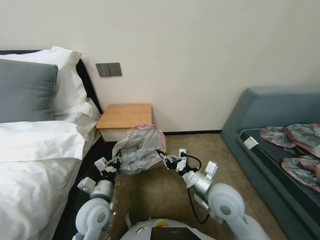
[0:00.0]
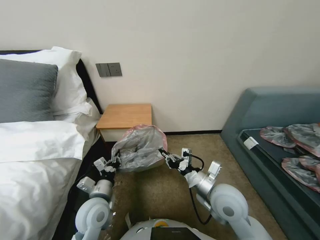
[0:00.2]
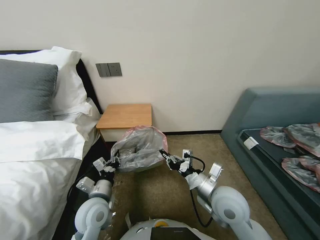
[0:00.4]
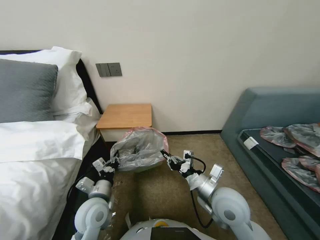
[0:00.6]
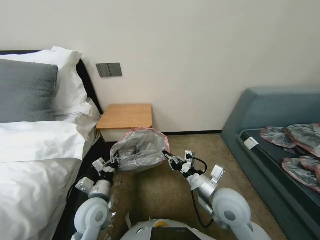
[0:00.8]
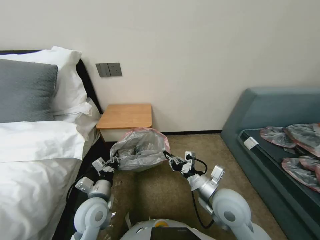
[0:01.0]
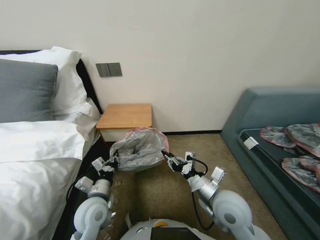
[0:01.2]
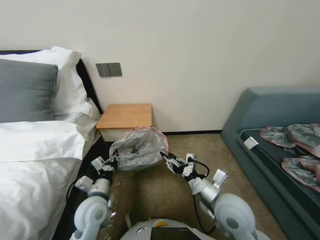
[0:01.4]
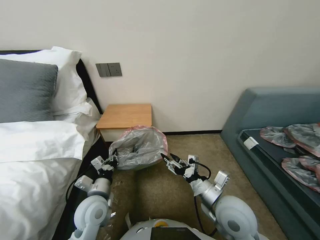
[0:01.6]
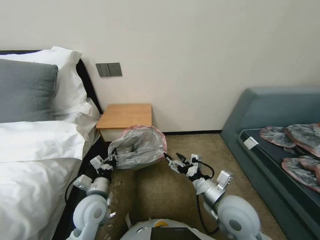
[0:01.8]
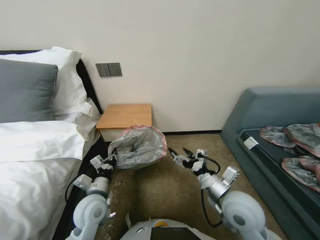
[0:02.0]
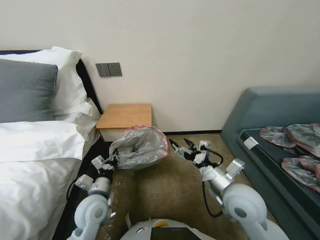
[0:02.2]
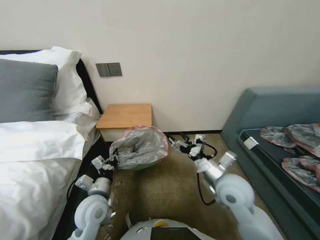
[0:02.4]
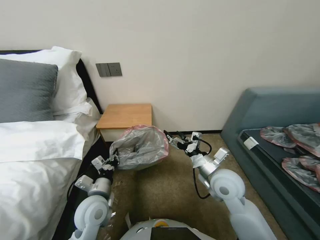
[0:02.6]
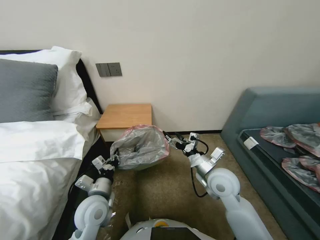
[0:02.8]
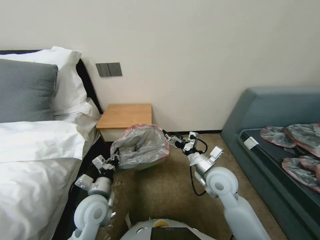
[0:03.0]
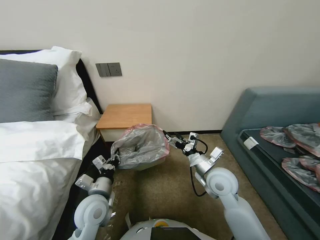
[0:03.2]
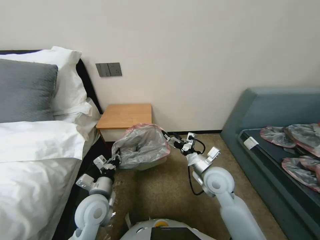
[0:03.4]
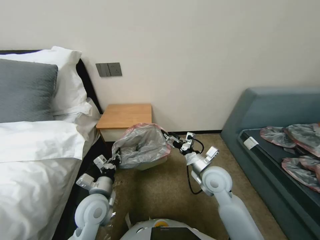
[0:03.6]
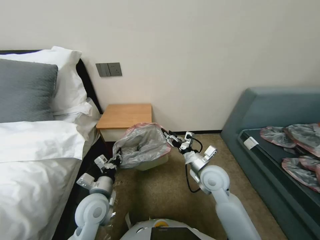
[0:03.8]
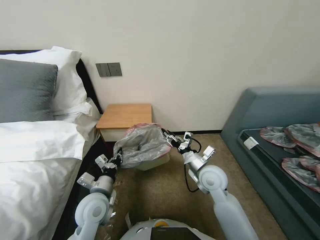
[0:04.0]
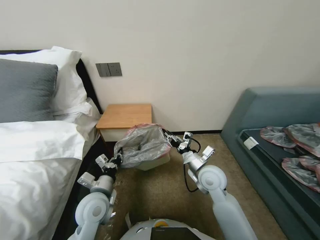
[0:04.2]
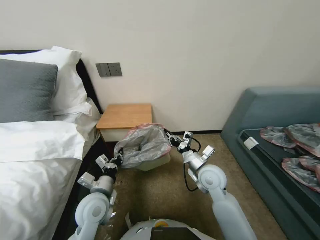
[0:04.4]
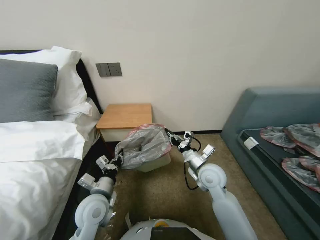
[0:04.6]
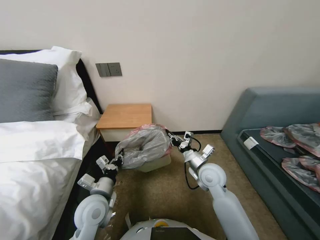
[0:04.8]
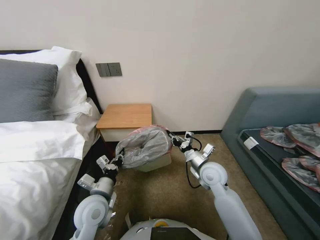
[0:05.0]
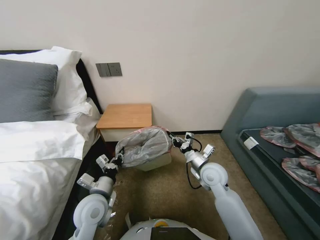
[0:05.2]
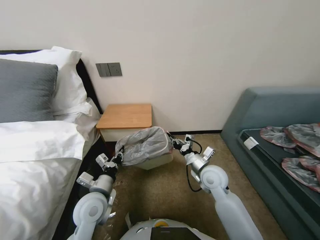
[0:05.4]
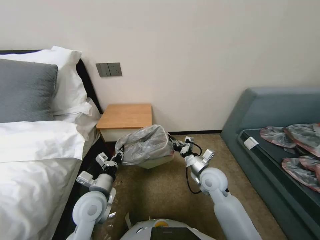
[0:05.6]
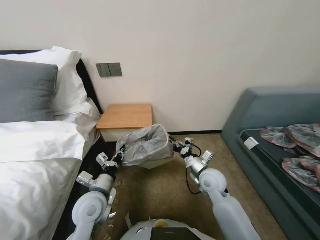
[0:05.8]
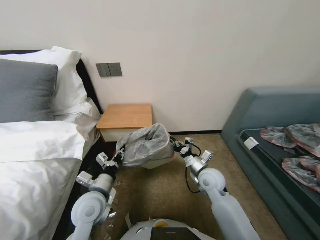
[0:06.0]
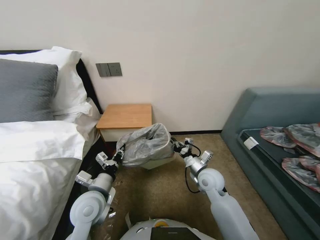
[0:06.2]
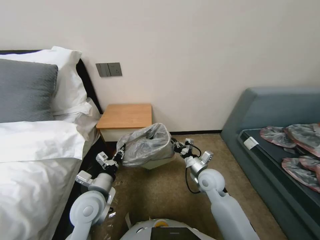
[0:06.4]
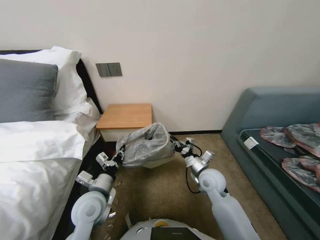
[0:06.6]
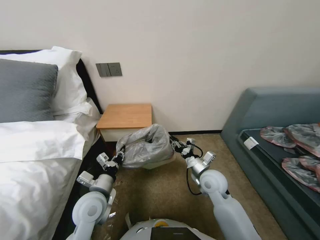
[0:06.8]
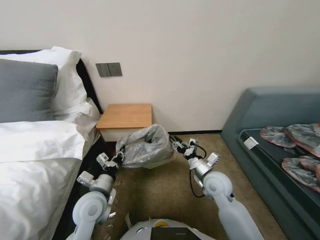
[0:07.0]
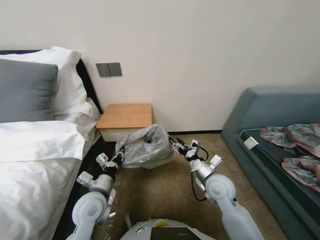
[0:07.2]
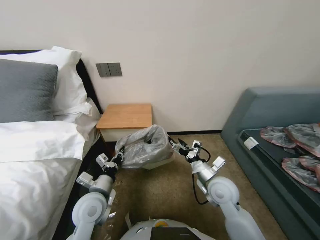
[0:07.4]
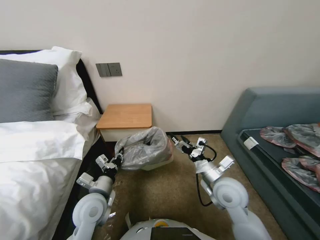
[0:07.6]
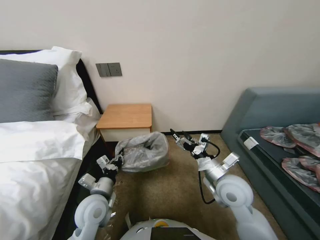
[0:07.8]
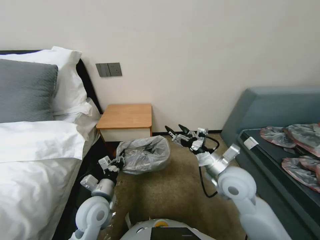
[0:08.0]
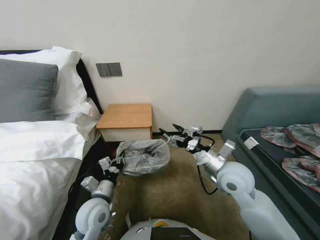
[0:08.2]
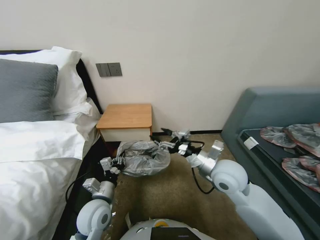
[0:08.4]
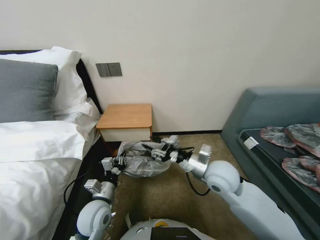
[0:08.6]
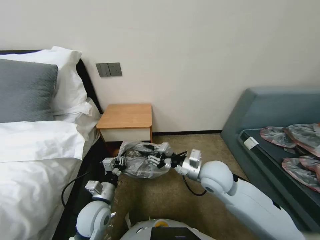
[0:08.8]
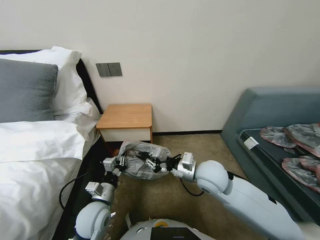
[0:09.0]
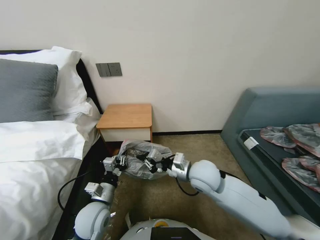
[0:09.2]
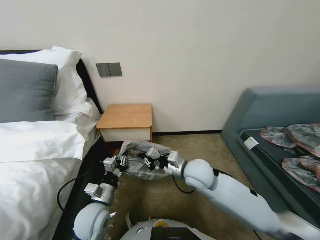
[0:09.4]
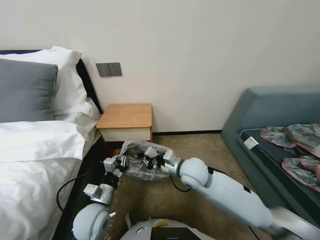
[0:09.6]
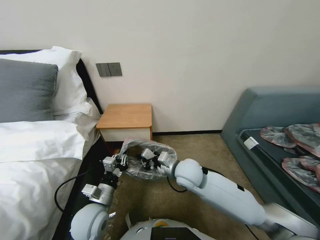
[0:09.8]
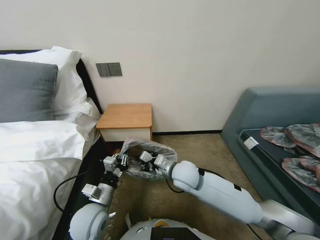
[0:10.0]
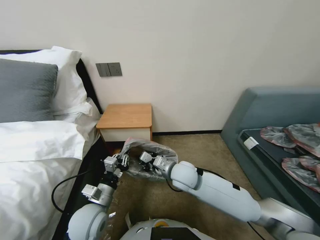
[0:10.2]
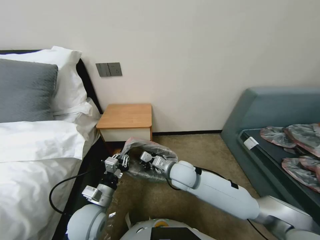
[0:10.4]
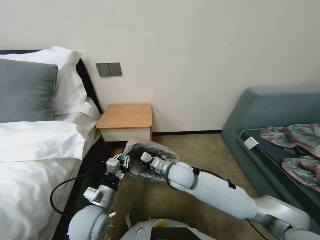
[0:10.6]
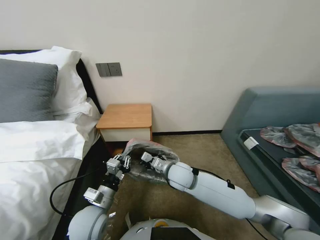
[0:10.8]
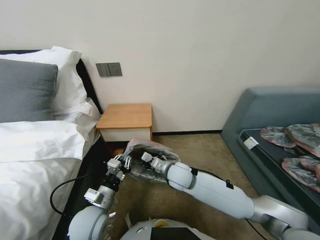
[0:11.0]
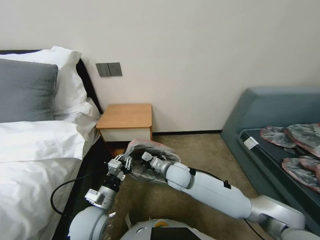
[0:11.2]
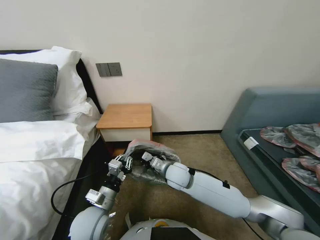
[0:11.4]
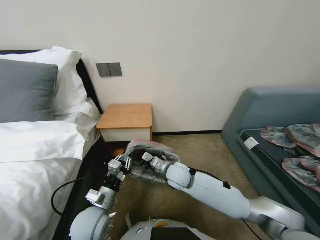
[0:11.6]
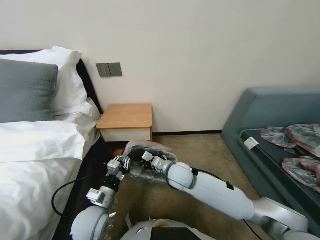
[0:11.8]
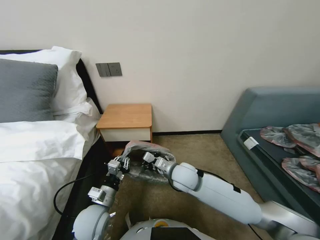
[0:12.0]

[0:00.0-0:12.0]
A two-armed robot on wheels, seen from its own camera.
Task of the whole recording: Pick up the garbage bag from the table and place it over the trash can.
0:00.0 to 0:01.6: The right gripper opens its fingers.
0:01.6 to 0:03.0: The right gripper is displaced forward by roughly 10 cm, and opens.
0:03.0 to 0:04.4: The right gripper closes up.
0:04.4 to 0:06.0: There are only small adjustments of the grippers.
0:06.0 to 0:07.6: The right gripper goes some 5 cm backward, and opens its fingers.
0:07.6 to 0:09.0: The right gripper shifts roughly 10 cm to the left and upward, and closes.
0:09.0 to 0:10.4: The right gripper moves to the left, roughly 10 cm.
0:10.4 to 0:12.0: There are only small adjustments of the grippers.

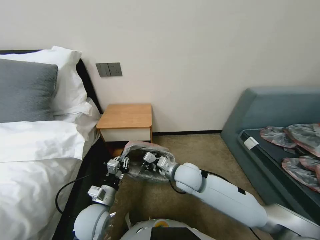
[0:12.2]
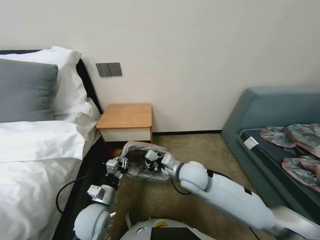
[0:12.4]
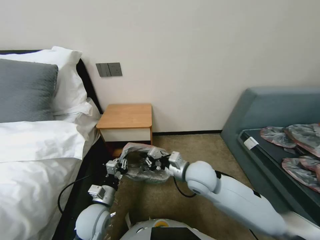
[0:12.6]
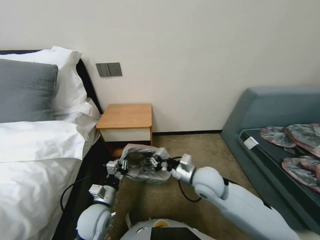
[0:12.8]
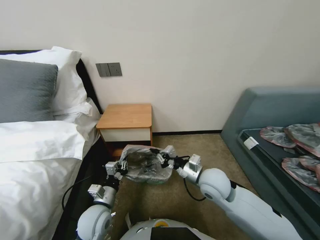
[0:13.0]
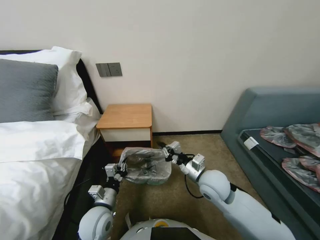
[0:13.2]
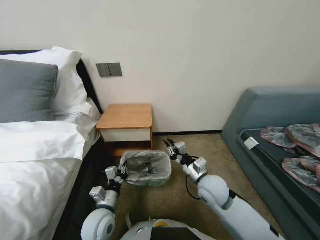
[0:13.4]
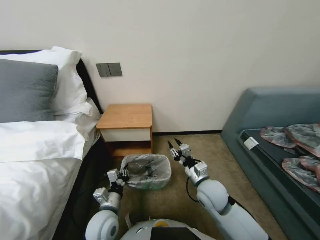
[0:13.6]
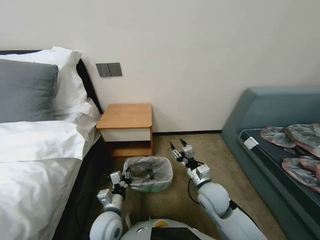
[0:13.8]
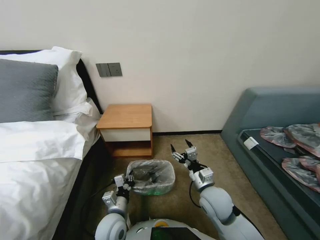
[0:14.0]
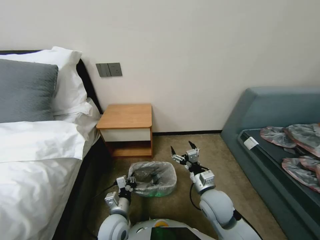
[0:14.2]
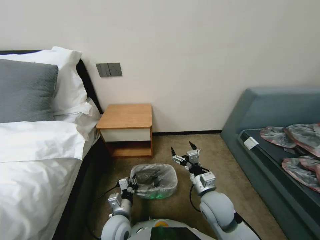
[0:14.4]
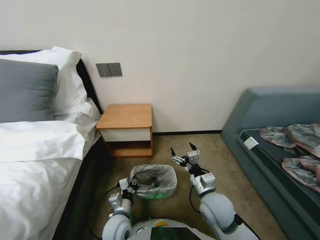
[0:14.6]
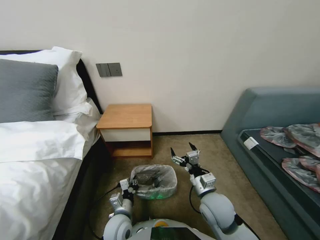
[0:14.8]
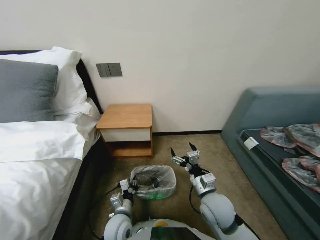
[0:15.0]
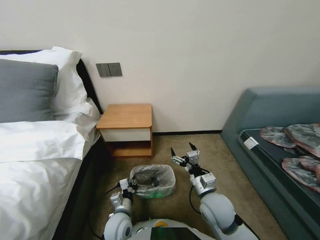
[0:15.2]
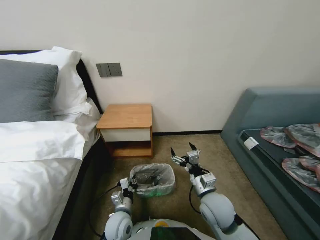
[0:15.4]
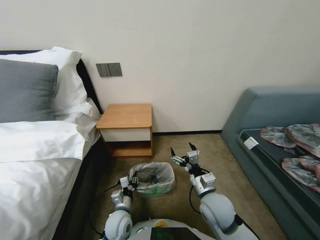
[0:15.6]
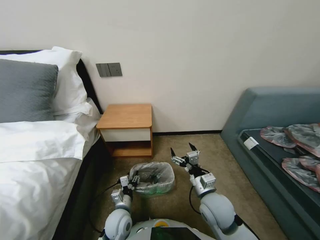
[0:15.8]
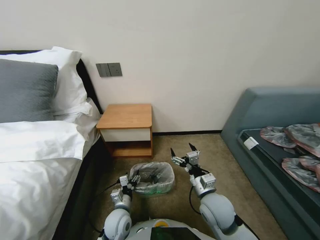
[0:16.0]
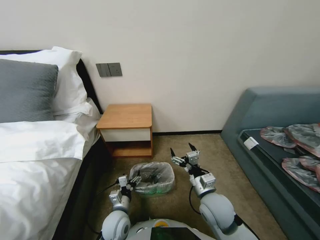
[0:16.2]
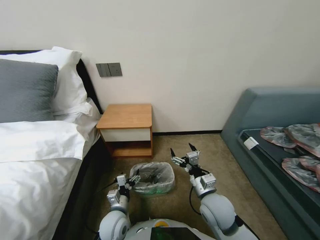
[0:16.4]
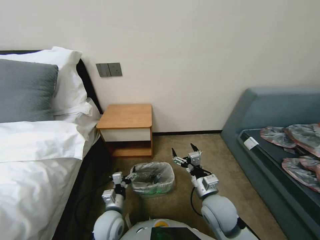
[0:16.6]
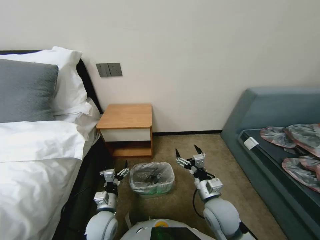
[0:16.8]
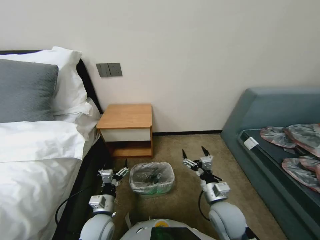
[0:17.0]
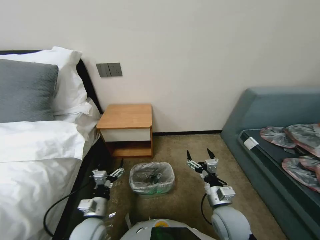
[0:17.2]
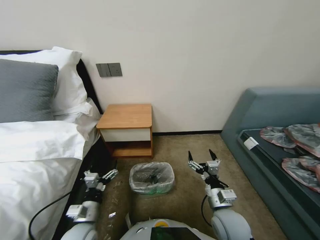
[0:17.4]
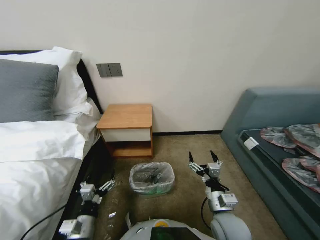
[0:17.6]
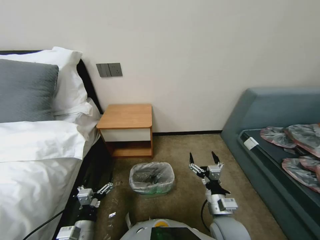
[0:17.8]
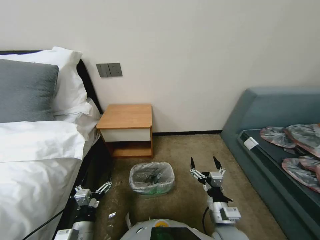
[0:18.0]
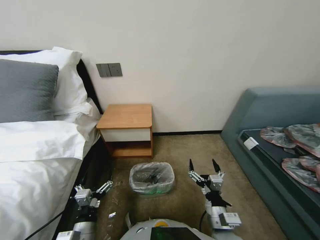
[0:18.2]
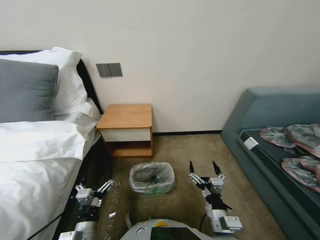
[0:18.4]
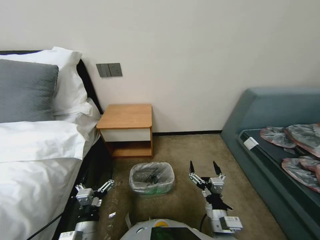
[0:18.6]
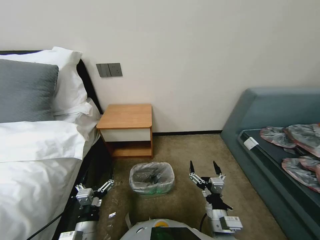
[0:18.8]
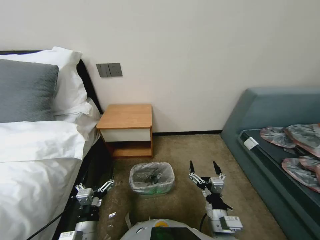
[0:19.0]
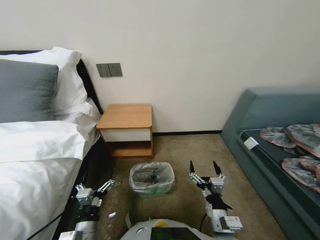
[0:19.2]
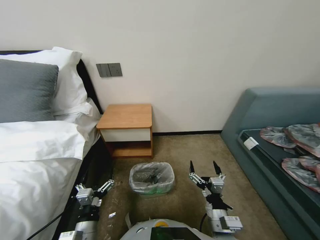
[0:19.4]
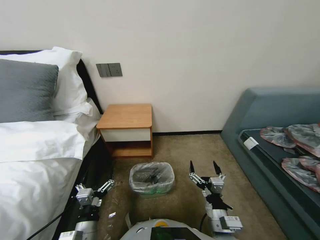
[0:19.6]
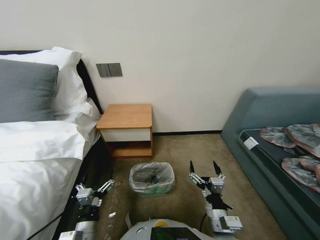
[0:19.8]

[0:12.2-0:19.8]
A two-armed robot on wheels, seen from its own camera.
Task of the whole recording: Pick up the garbage bag from the table and place it over the trash can.
0:12.2 to 0:13.8: The right gripper shifts roughly 10 cm to the right, and opens its fingers.
0:13.8 to 0:15.2: The right gripper opens up, while the left gripper moves downward, roughly 5 cm.
0:15.2 to 0:16.8: The left gripper shifts by approximately 5 cm, and opens its fingers.
0:16.8 to 0:18.2: Both grippers move backward, approximately 10 cm.
0:18.2 to 0:19.8: The grippers make only small movements.

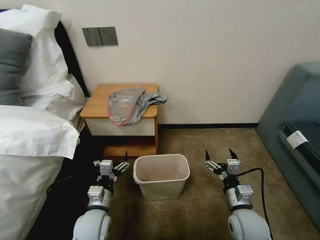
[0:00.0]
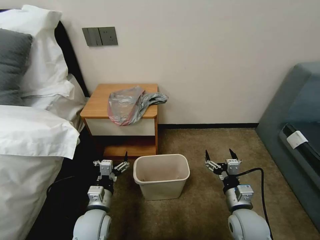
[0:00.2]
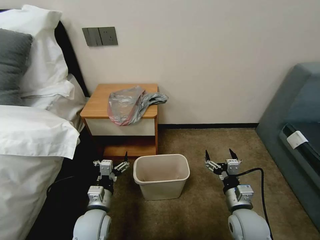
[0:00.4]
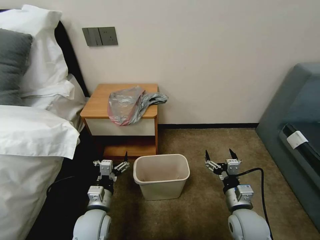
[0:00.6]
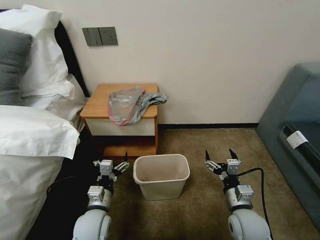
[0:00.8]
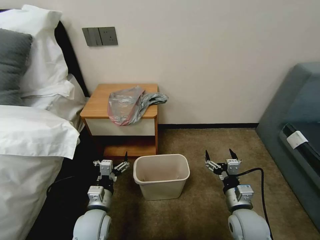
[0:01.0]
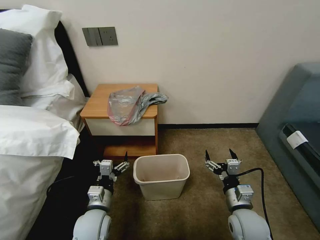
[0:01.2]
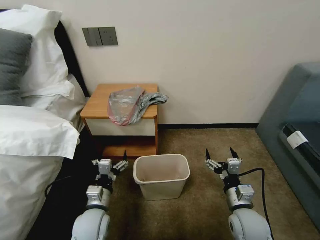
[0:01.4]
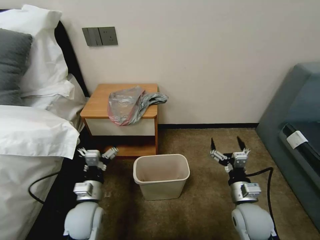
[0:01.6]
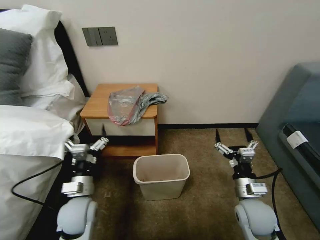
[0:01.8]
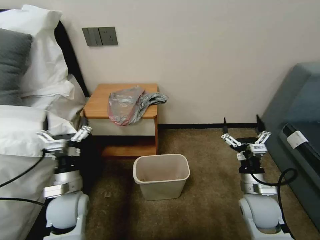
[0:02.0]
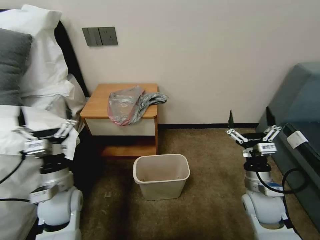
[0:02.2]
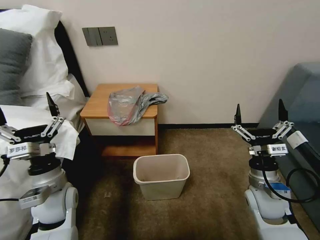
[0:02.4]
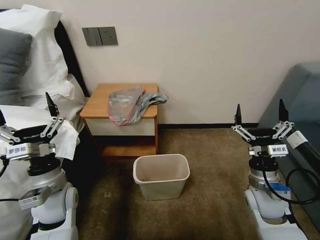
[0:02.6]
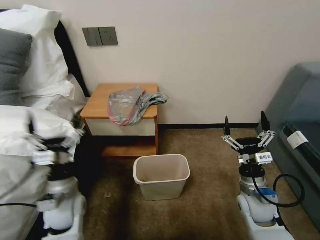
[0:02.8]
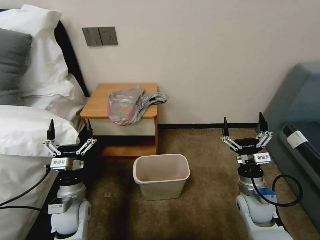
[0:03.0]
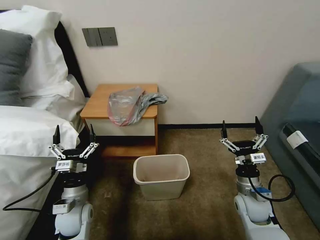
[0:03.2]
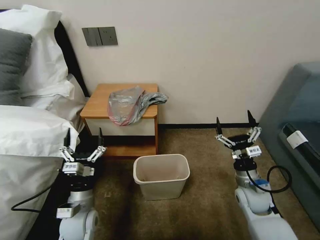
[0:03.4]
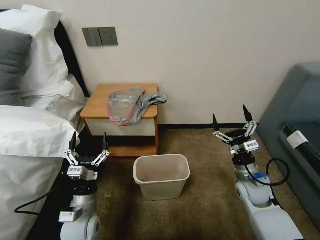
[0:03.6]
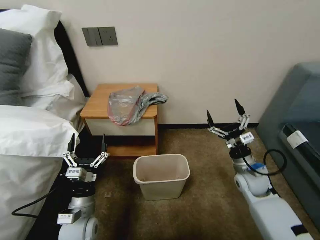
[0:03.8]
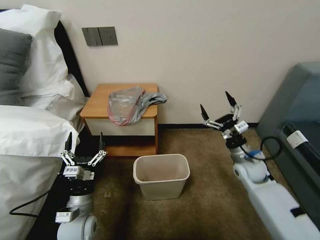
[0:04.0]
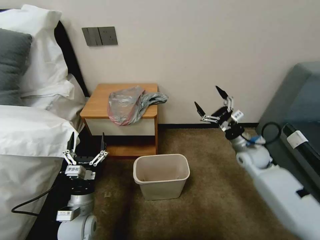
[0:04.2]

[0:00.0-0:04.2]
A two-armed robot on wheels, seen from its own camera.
Task of the whole recording: Pick up the garbage bag from the table and place it over the trash can.
0:01.4 to 0:02.8: The right gripper travels forward by some 5 cm; the left gripper moves to the left and upward, some 10 cm.
0:02.8 to 0:04.2: The right gripper moves forward, some 15 cm. The left gripper shifts roughly 5 cm downward.
